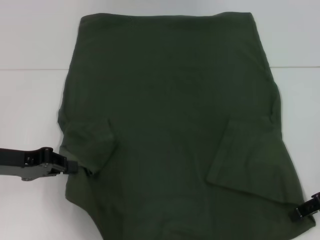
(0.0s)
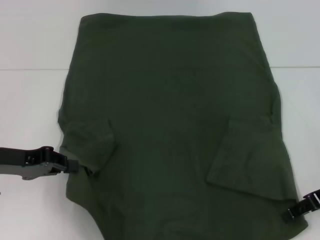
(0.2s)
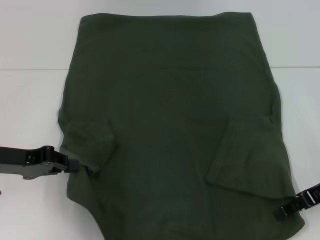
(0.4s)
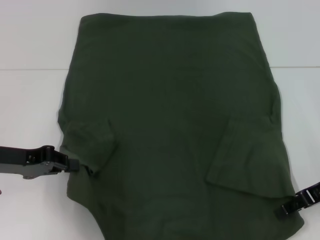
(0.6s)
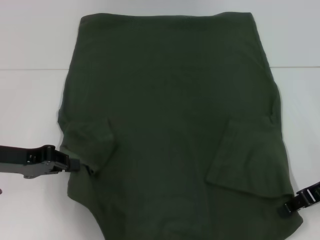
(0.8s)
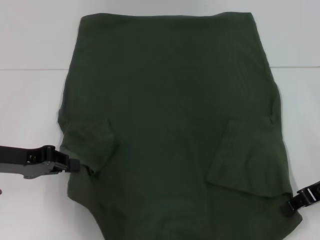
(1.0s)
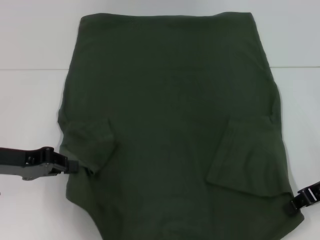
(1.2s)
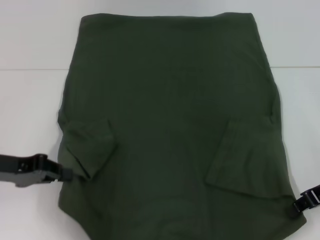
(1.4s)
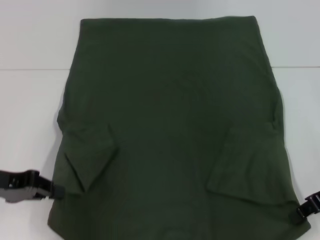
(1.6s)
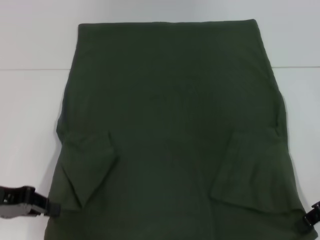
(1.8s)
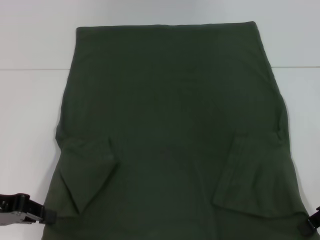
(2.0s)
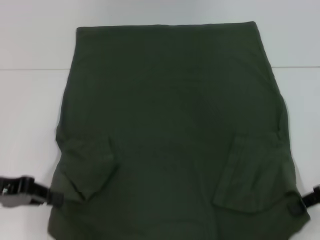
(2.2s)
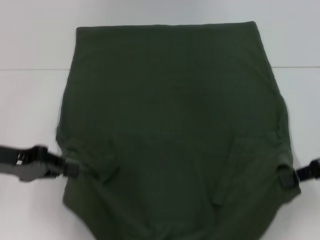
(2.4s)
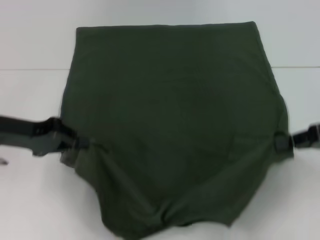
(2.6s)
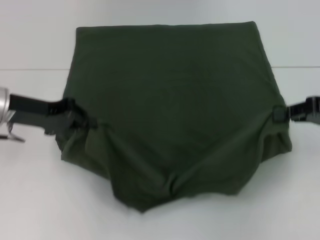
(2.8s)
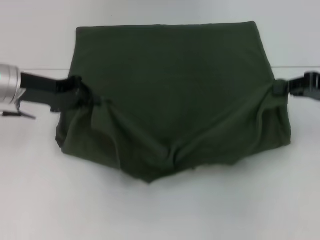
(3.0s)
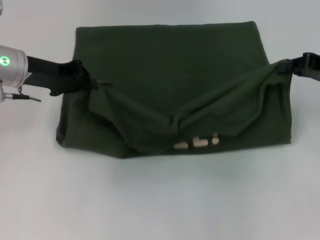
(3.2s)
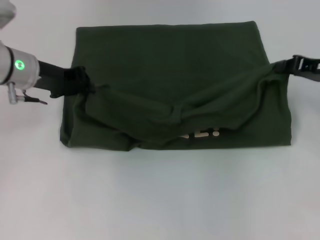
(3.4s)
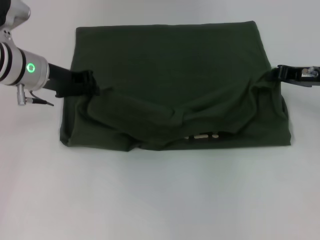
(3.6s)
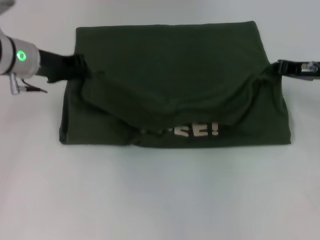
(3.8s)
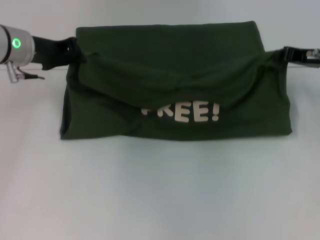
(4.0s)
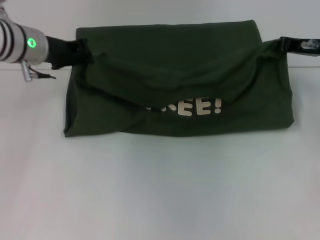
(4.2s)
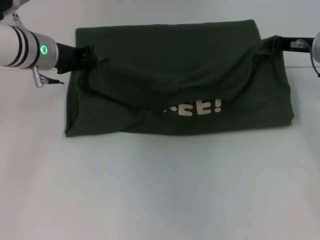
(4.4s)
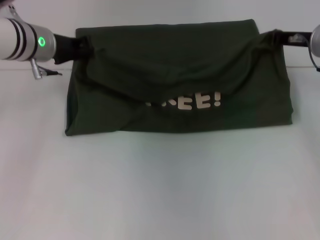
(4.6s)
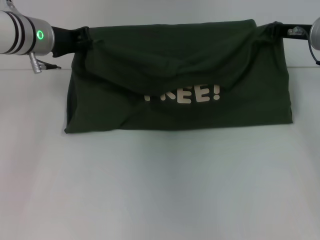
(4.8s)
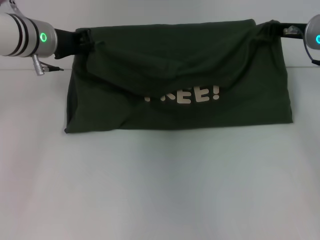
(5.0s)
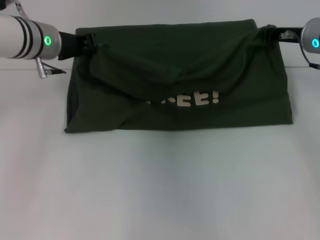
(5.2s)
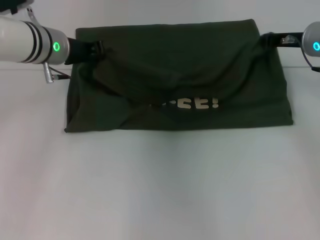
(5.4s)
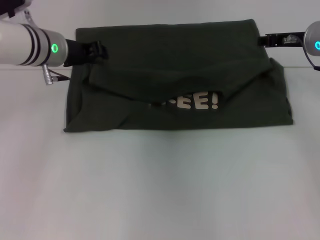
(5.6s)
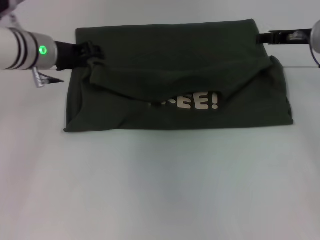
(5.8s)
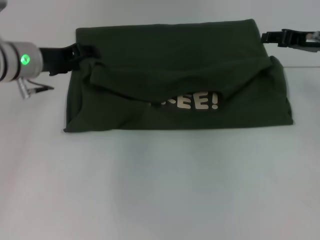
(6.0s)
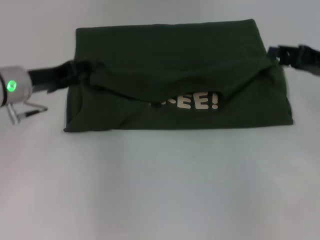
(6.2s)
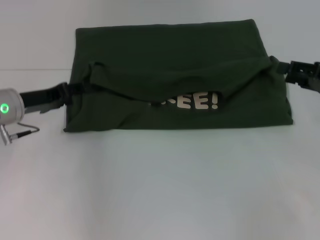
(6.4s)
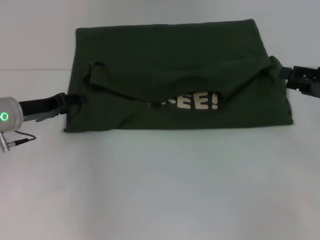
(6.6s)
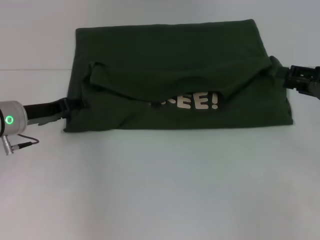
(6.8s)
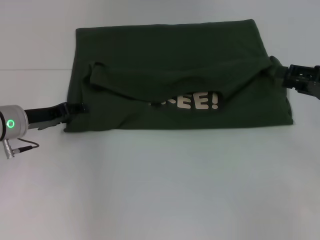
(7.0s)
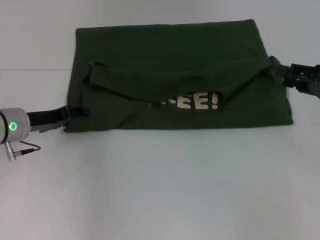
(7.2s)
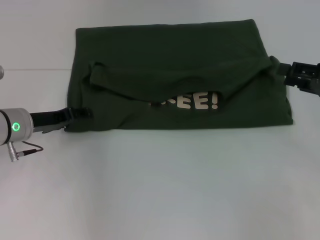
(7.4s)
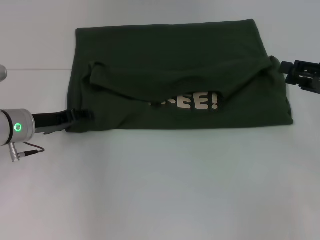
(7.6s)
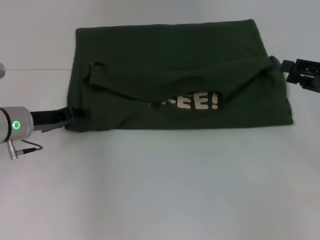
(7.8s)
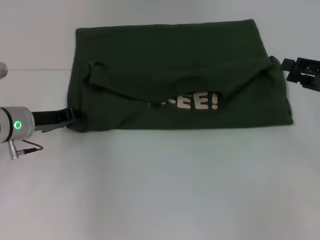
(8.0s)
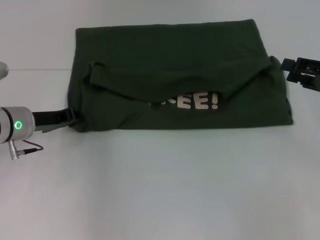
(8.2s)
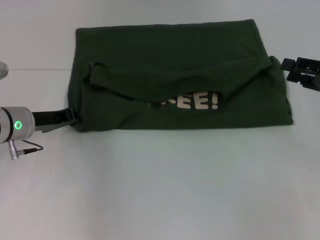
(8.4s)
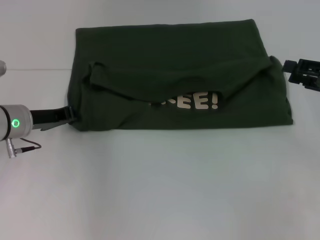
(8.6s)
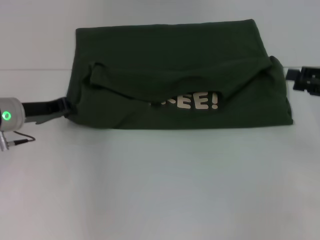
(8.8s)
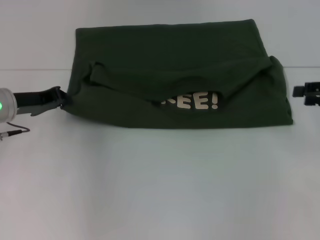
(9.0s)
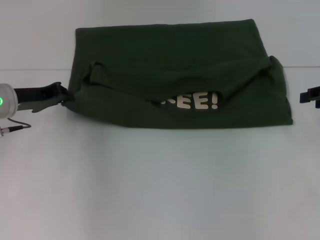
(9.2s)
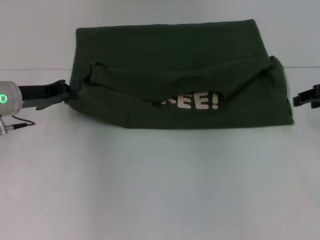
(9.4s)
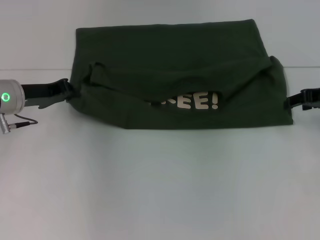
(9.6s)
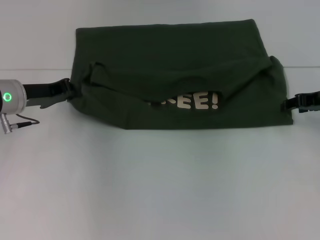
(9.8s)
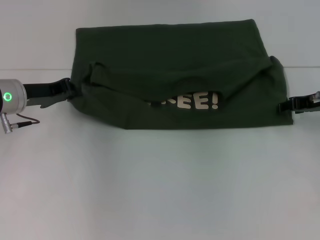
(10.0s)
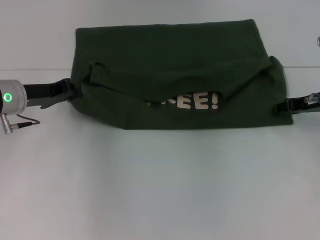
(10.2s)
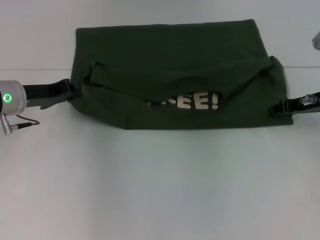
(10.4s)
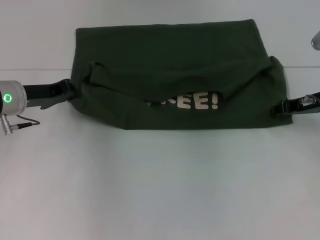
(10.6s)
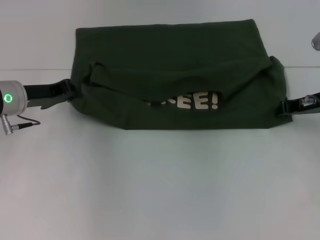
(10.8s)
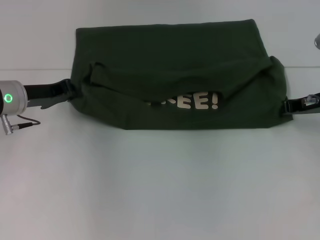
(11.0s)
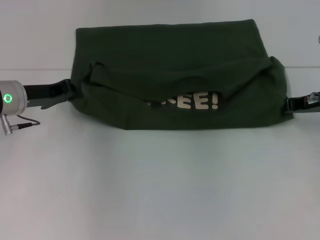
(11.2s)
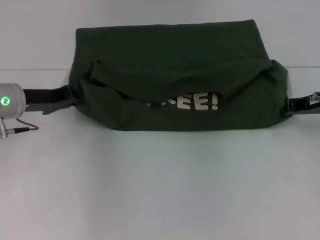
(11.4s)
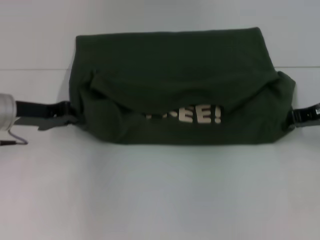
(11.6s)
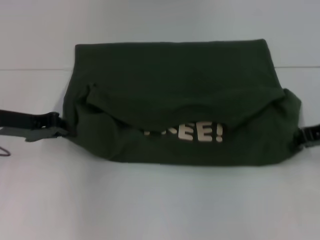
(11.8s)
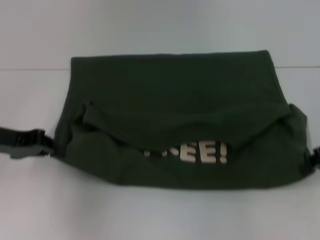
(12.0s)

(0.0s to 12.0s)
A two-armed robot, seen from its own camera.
Step, 1.6s - 5.6s: Fold the clothes with your left hand.
Step, 1.6s - 5.6s: Fold the clothes with your right hand.
0.0s - 1.6s: The right gripper closes its fingers.
1.6s - 3.0s: The right gripper moves forward and upward, about 10 cm; the left gripper heads forward and to the right, covering some 15 cm.
3.0s - 4.4s: The left gripper heads forward and to the right, covering approximately 10 cm. Meanwhile the right gripper travels forward and to the left by roughly 10 cm.
4.4s - 6.0s: The left gripper opens, while the right gripper opens up.
6.0s - 7.6s: The right gripper moves backward and to the right, roughly 10 cm. The left gripper is displaced downward by about 10 cm.
7.6s - 9.0s: The left gripper closes its fingers.
9.0s - 10.4s: The right gripper is displaced to the left and forward by about 10 cm.
10.4s - 12.0s: Both grippers travel together backward, about 5 cm. The right gripper closes up.

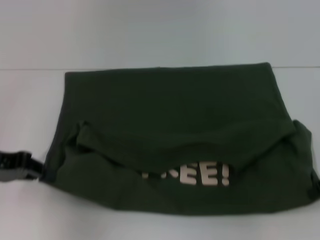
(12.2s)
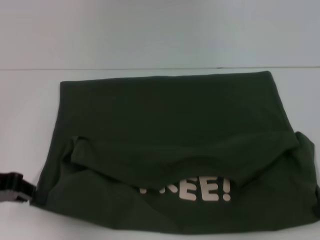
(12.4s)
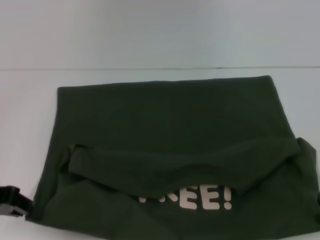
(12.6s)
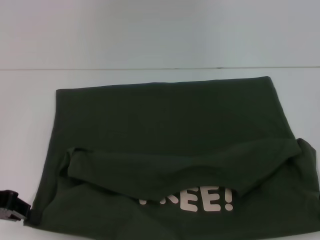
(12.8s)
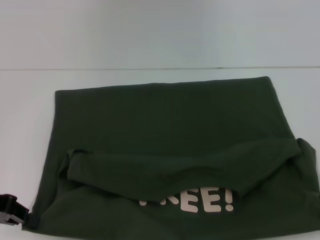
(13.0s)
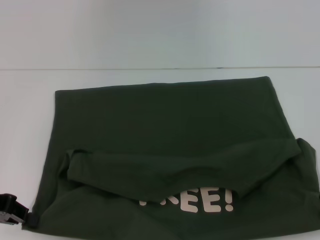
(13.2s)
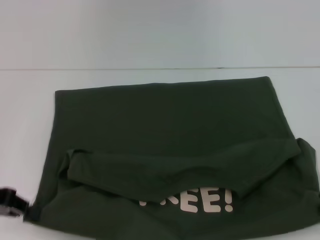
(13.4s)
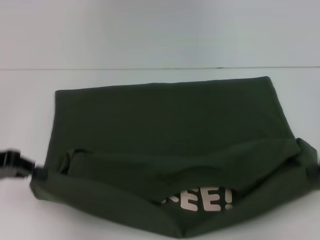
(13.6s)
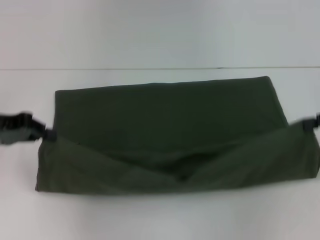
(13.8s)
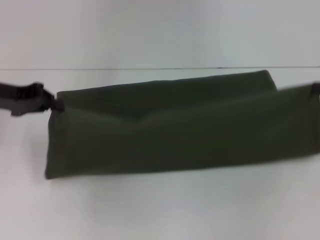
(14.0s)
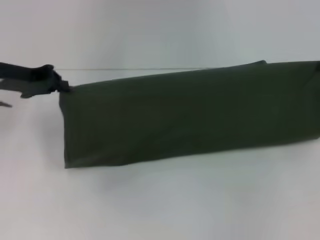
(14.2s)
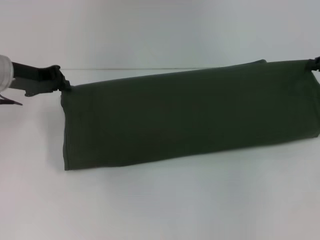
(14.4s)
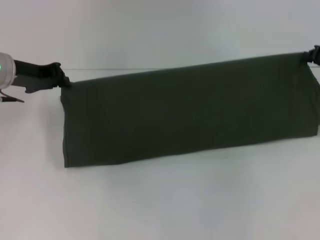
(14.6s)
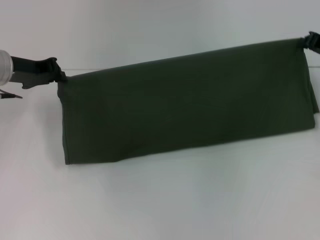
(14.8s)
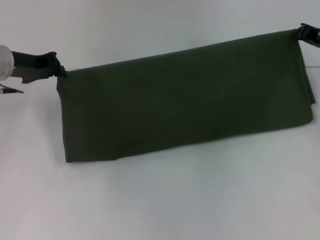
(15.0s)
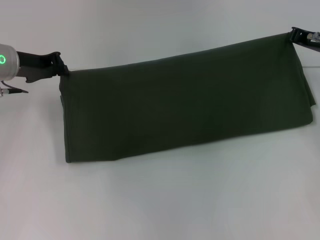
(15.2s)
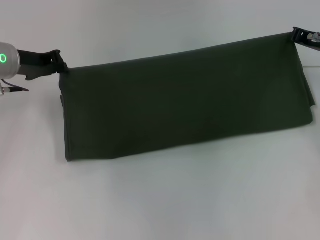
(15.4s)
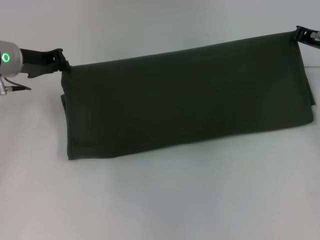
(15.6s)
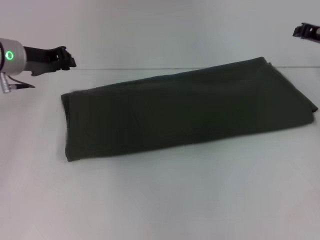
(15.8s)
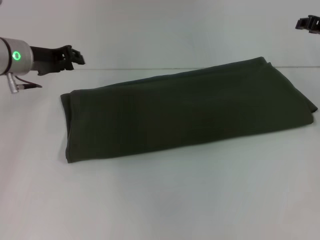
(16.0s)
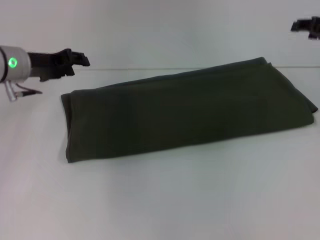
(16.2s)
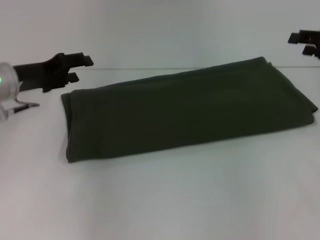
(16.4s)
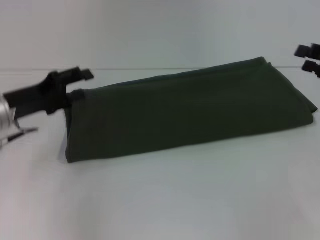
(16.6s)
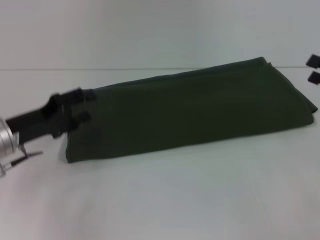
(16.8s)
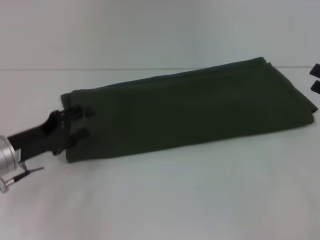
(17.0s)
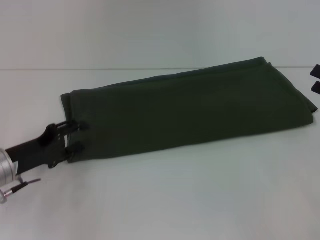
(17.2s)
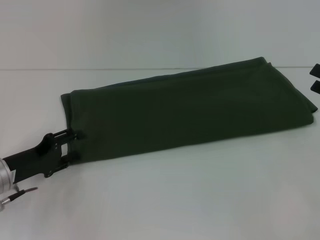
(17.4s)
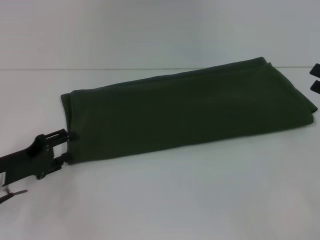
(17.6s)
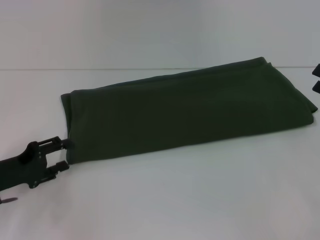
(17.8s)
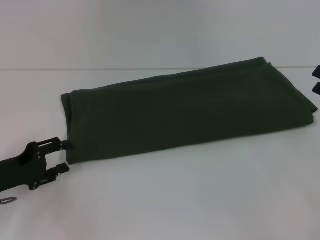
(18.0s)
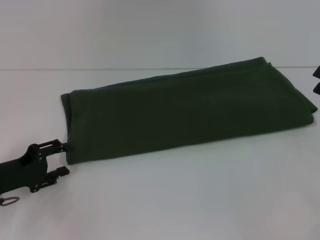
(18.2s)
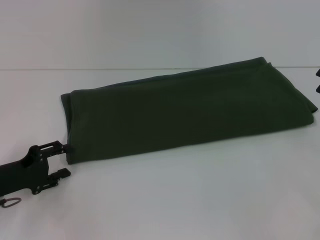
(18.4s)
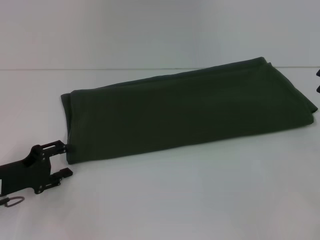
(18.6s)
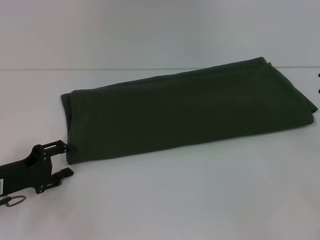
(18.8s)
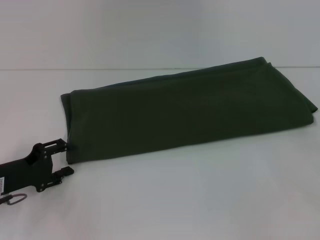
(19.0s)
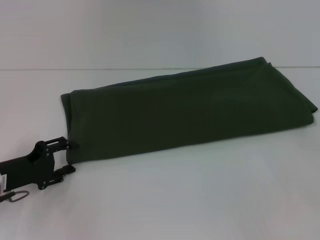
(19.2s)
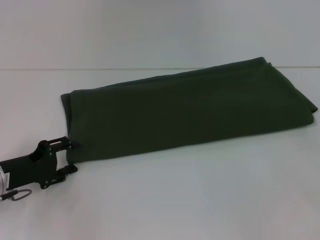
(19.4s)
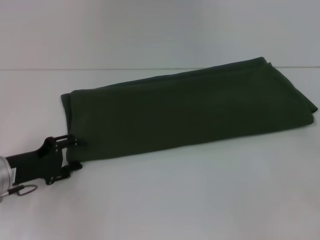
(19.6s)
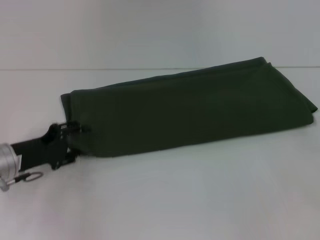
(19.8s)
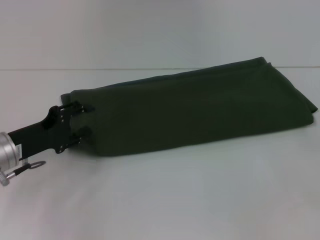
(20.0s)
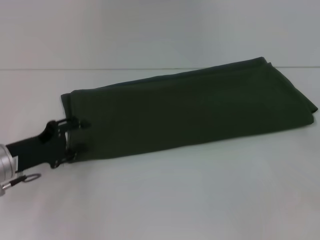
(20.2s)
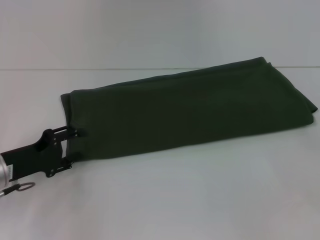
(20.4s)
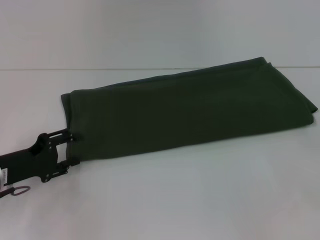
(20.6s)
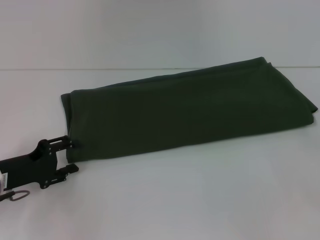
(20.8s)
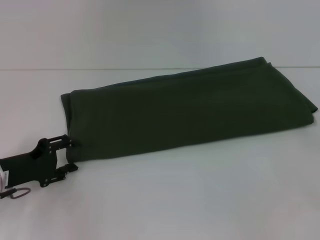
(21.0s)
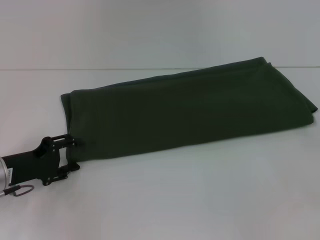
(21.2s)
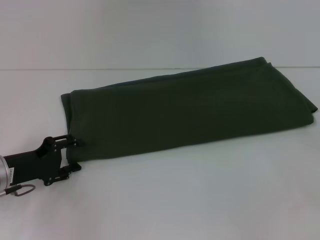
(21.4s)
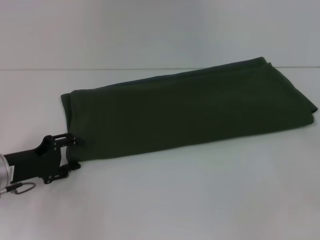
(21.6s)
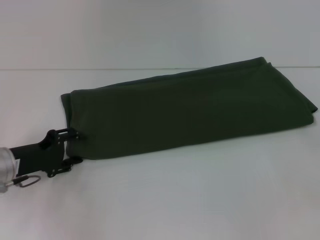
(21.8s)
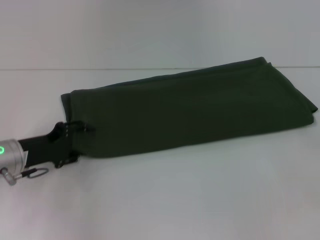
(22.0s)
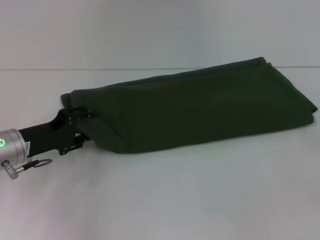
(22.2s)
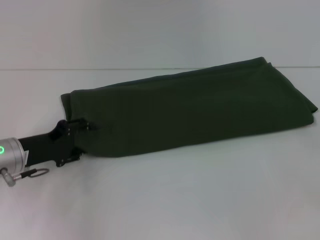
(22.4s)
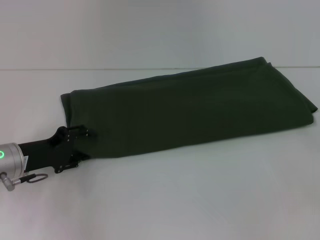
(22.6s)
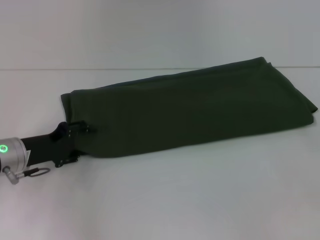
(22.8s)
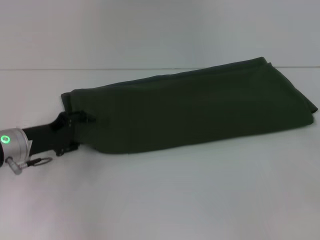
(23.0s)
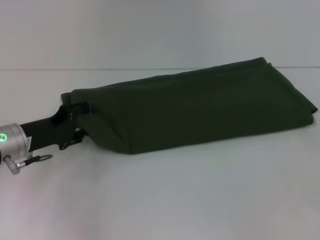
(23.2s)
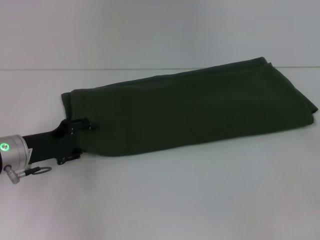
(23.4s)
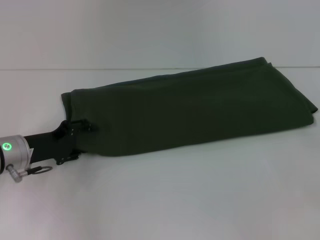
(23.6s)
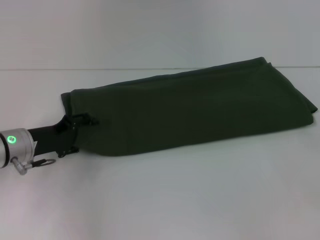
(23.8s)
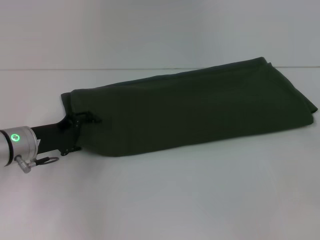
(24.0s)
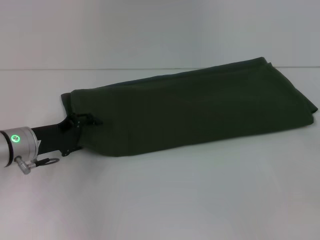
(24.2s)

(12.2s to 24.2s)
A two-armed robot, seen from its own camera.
Step, 13.4s - 15.8s: Fold the clothes with your right hand.
13.8s - 15.2s: The left gripper goes roughly 10 cm forward and to the right. The right gripper is displaced forward and to the left by approximately 15 cm.
15.2s - 16.6s: The left gripper goes about 10 cm backward, and opens its fingers. Meanwhile the right gripper is displaced backward and to the right by approximately 10 cm, and opens its fingers.
16.6s - 18.2s: The right gripper moves some 5 cm. The left gripper moves backward and downward, roughly 10 cm.
18.2s - 21.2s: The grippers make only small movements.
21.2s - 22.6s: The grippers stay close to where they were, moving slightly.
22.6s - 24.2s: There are only small adjustments of the grippers.
